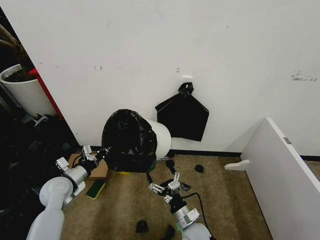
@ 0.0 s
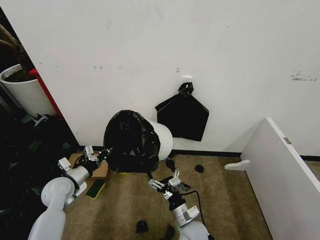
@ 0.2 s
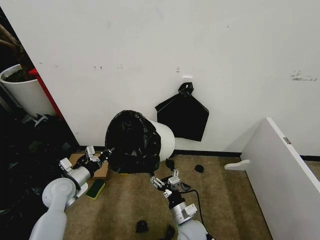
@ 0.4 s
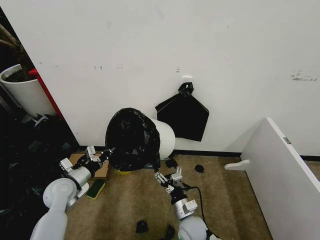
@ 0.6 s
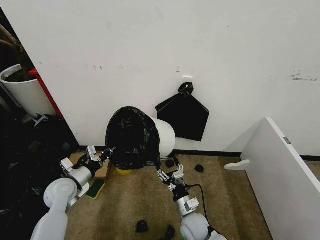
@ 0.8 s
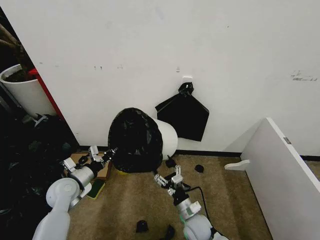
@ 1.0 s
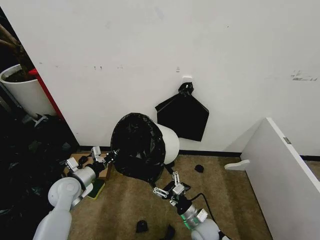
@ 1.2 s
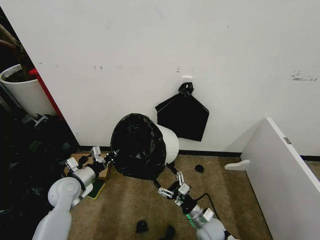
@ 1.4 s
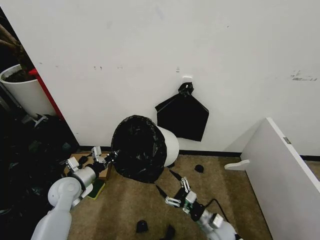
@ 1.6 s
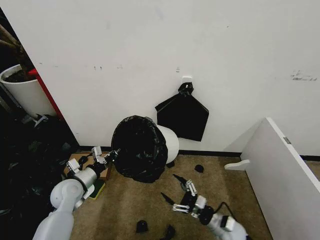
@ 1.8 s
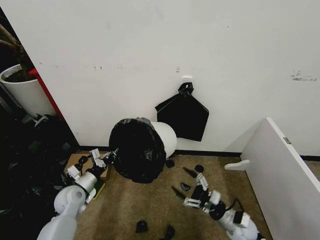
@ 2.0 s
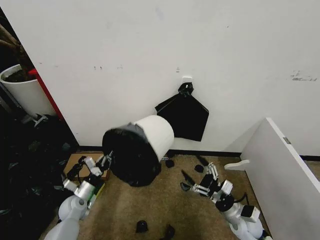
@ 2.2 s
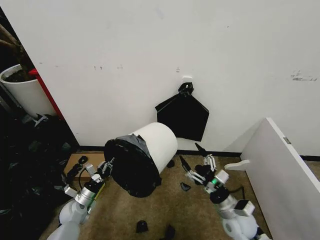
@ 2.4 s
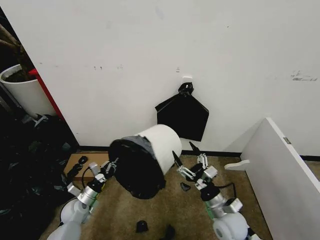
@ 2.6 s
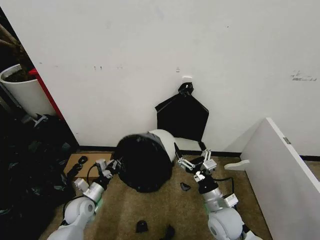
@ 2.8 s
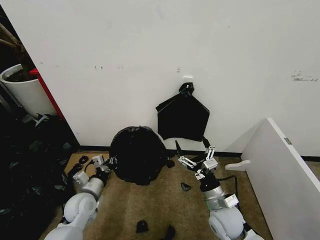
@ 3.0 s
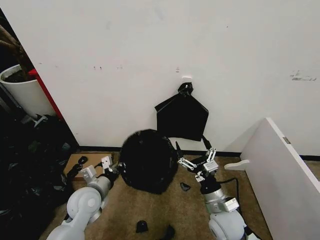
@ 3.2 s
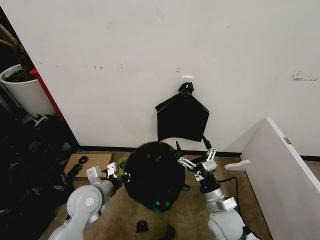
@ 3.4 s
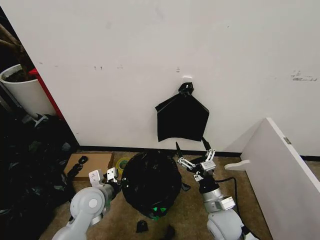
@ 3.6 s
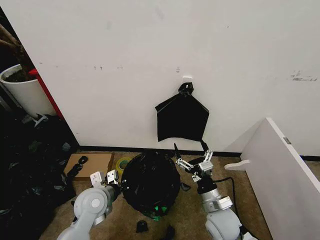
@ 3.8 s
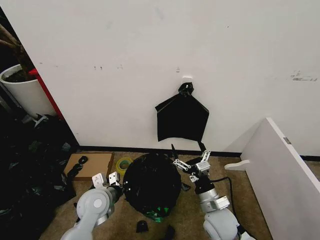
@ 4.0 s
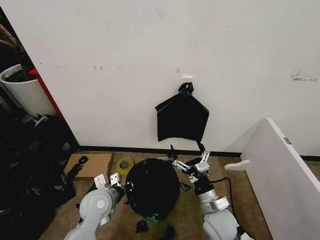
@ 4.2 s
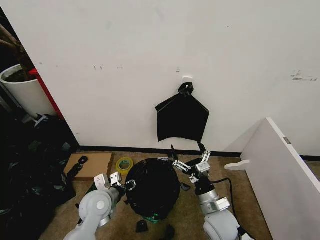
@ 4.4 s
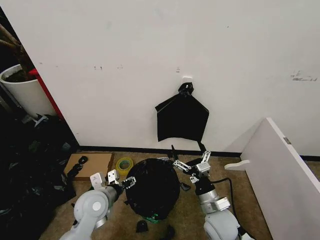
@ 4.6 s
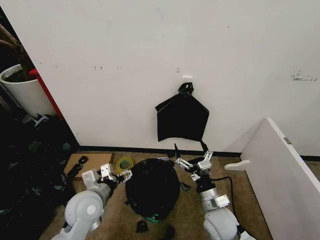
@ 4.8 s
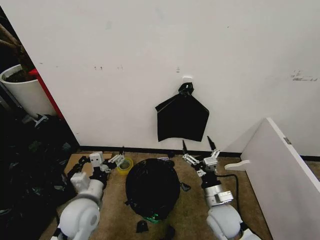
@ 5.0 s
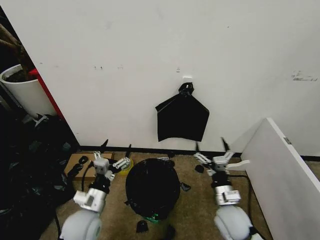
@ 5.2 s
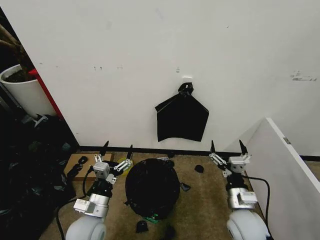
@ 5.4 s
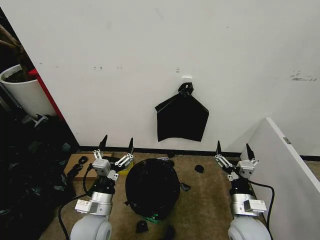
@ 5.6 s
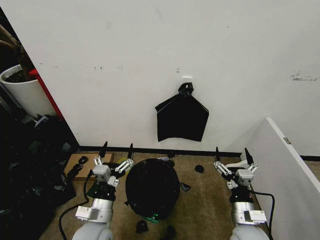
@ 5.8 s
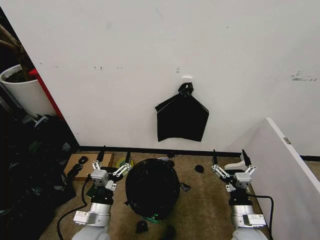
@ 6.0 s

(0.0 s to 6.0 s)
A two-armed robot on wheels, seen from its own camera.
Task of the whole recording: Place the garbage bag over the trash bin.
0.0 s - 1.6 s: The right gripper shifts some 10 cm to the right.
1.6 s - 3.0 s: The right gripper travels upward by approximately 15 cm, while the left gripper goes approximately 5 cm to the right, and goes downward and returns, about 15 cm each way.
3.0 s - 4.4 s: The left gripper is displaced to the right by roughly 5 cm, and opens up.
4.4 s - 6.0 s: The left gripper shifts approximately 10 cm backward, and opens its fingers. The right gripper travels to the right and backward by some 10 cm.
